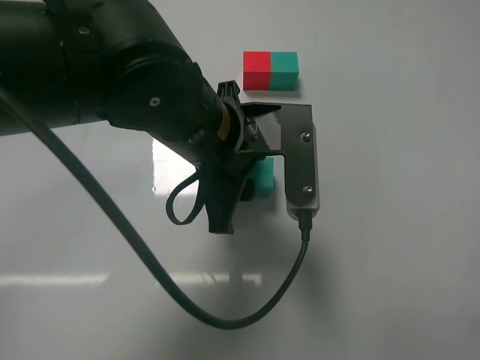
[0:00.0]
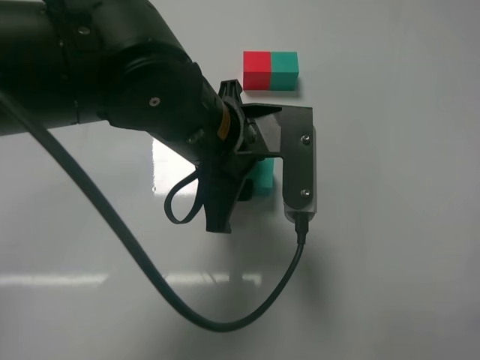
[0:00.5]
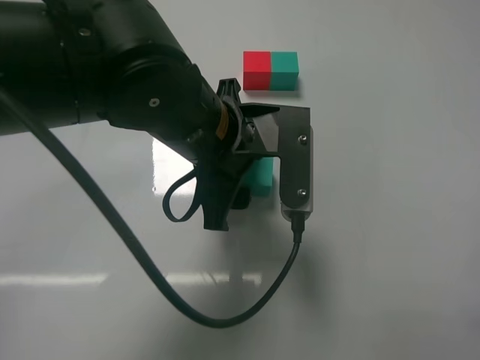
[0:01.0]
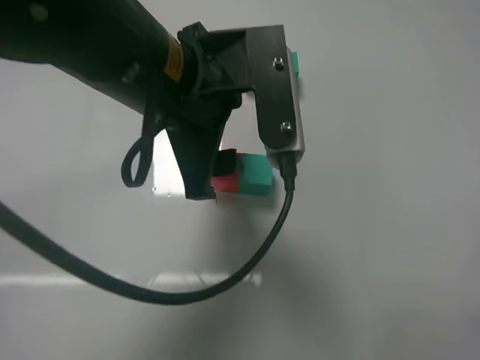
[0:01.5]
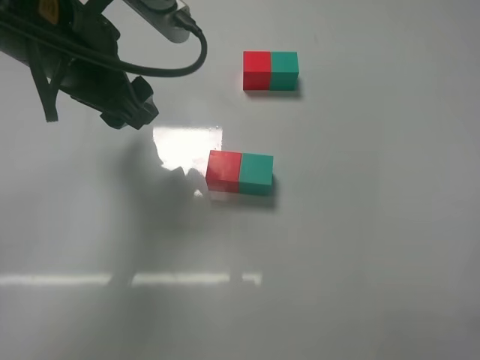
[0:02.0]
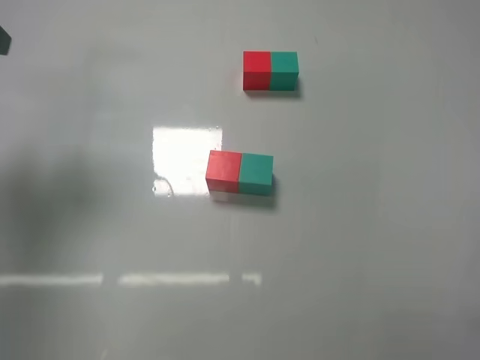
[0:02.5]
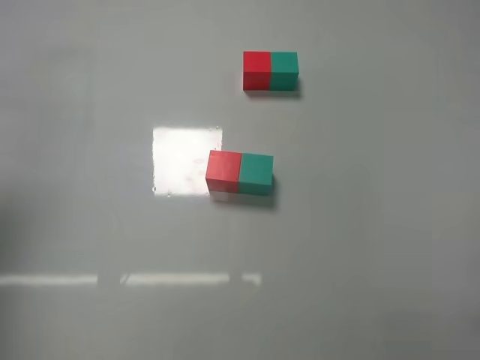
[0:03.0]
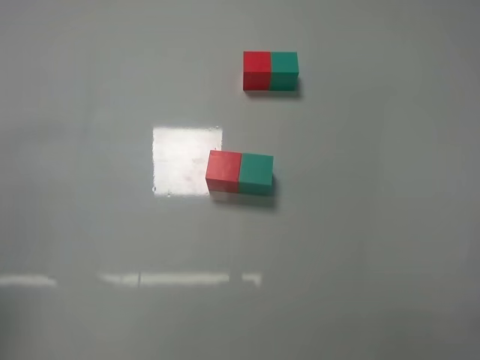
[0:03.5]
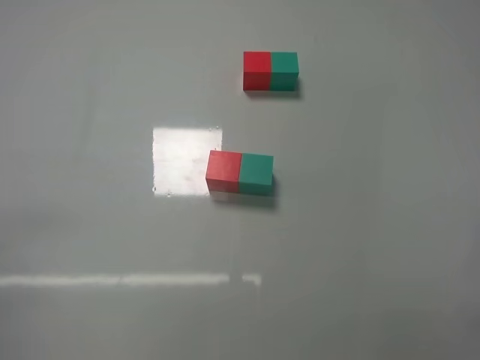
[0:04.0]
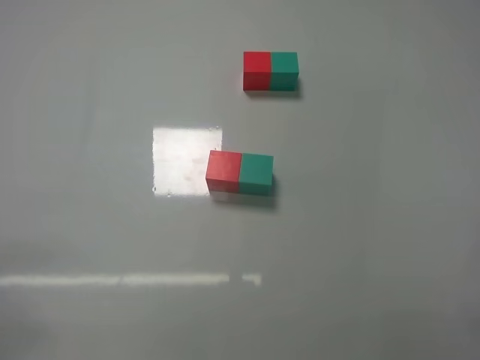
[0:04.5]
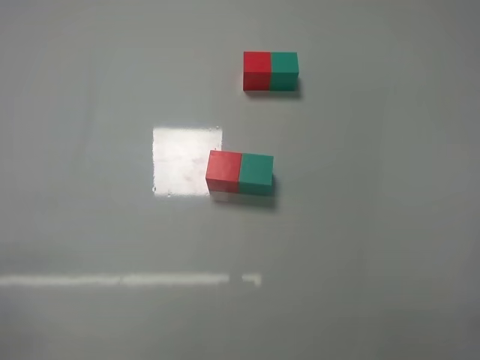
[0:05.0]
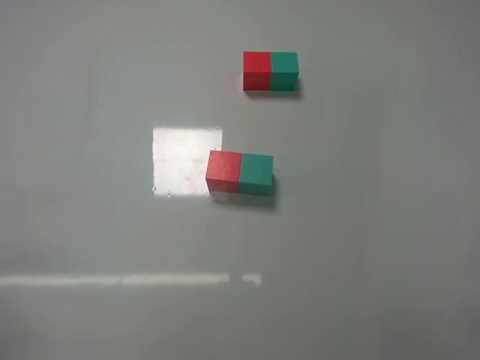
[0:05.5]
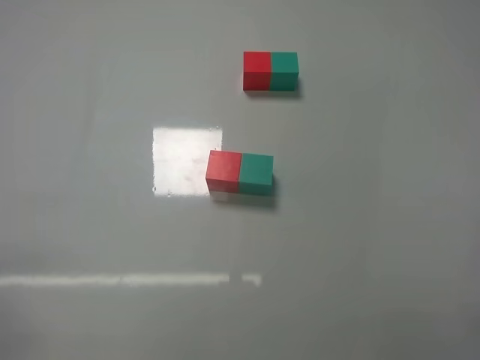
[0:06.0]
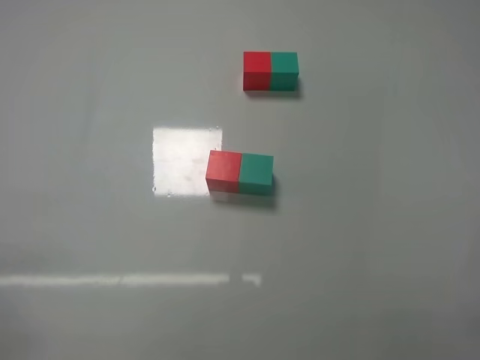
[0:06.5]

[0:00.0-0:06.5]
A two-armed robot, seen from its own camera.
Task of the whole recording: According to the building block template in front, assemble the scattered blocks together.
0:00.0 to 0:02.0: The left gripper shifts some 15 cm to the left and upward, and opens its fingers.
0:02.0 to 0:04.5: The left gripper heads backward, to the left and downward, covering some 35 cm.
